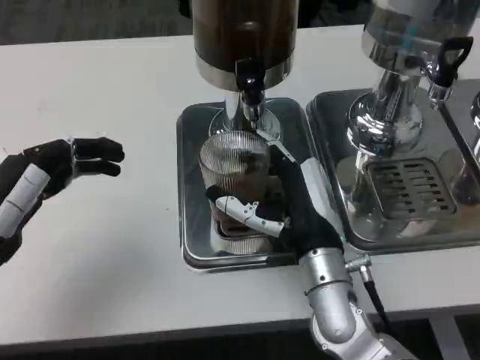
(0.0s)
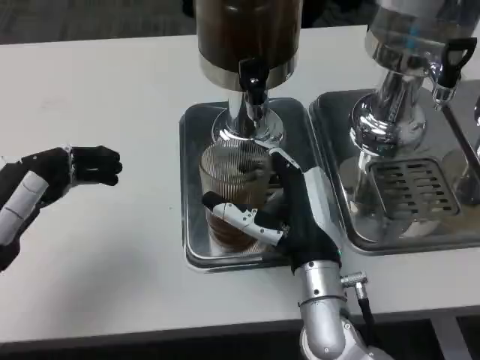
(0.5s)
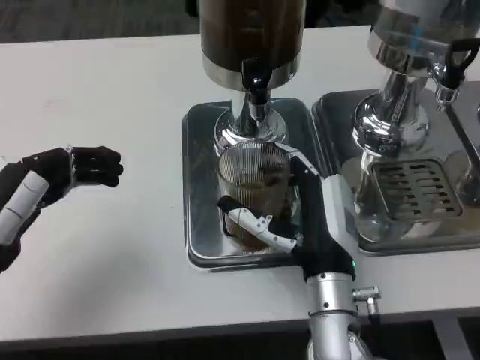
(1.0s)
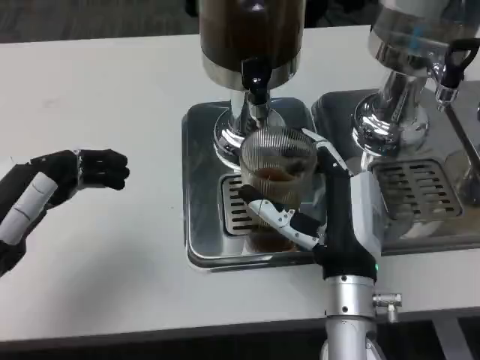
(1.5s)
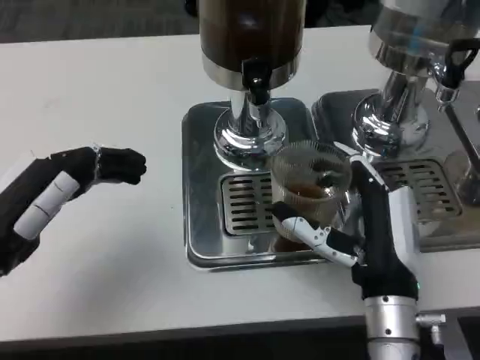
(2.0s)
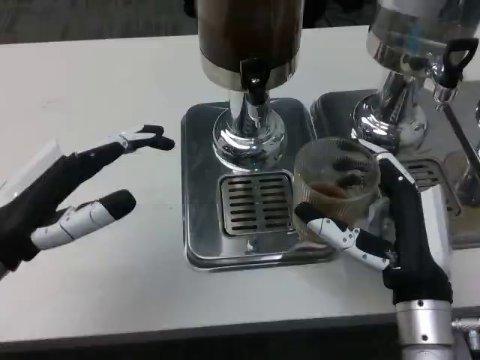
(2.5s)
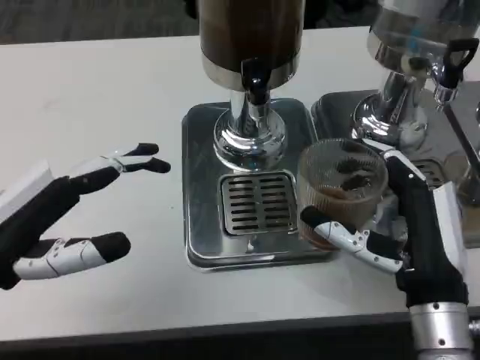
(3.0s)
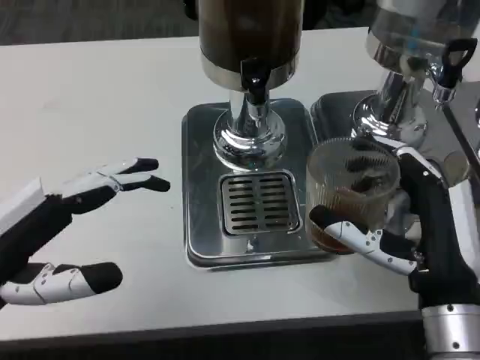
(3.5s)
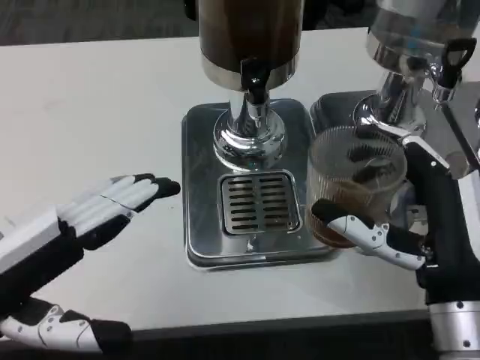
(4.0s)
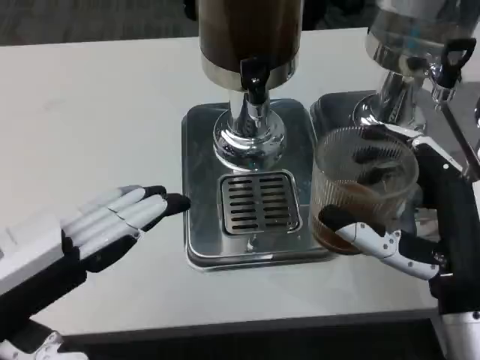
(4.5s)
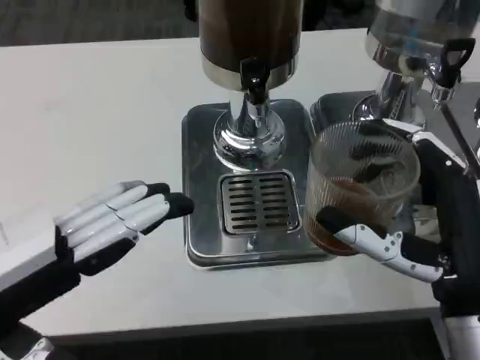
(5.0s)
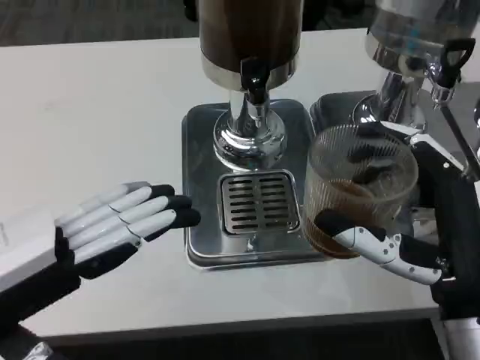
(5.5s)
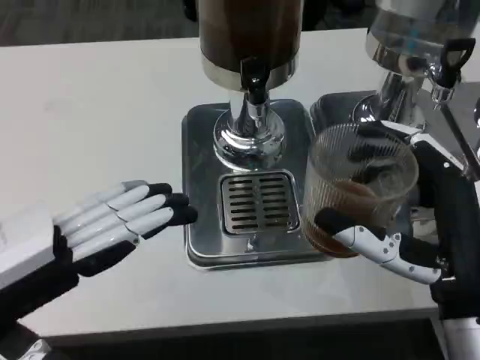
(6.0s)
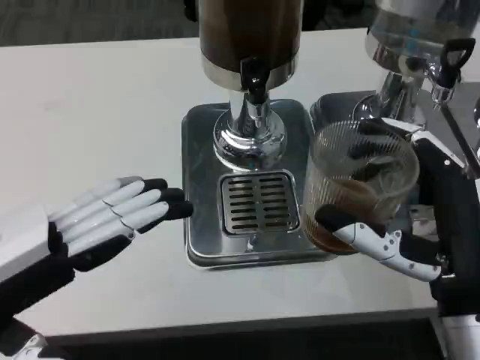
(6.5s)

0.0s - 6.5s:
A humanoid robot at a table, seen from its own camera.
Task of the whole recording: Grasp the cup under the faucet to collect the drink, then remove the cup.
0.0s - 2.0s: The right hand moves some 5 cm.
2.0s - 4.5s: The left hand shifts some 10 cm backward and upward; the right hand goes roughly 5 cm upward.
4.5s - 6.5s: There are only small adjustments of the hands.

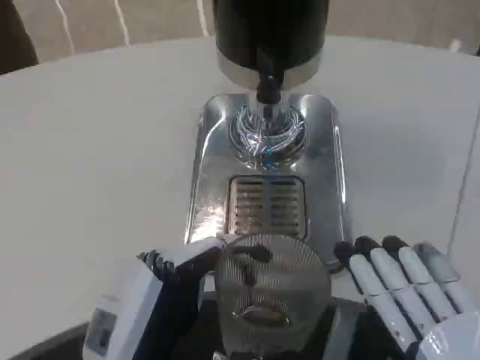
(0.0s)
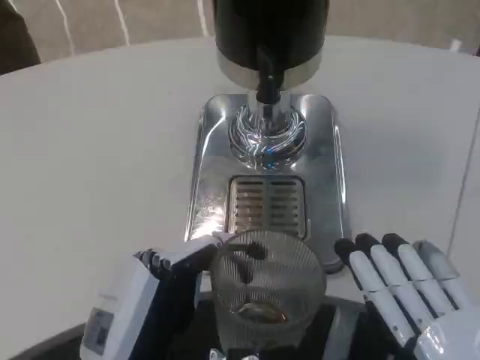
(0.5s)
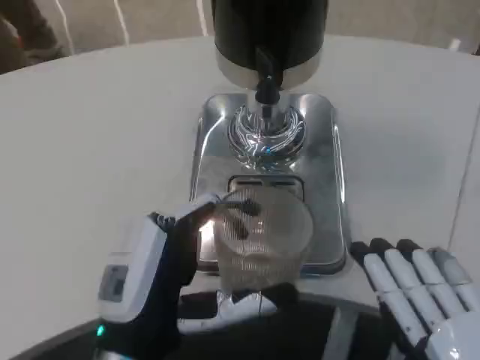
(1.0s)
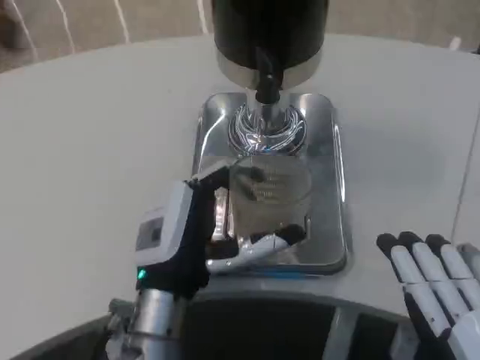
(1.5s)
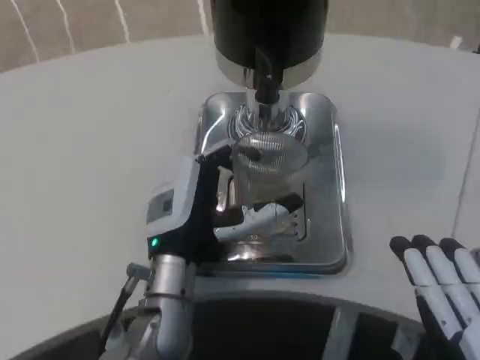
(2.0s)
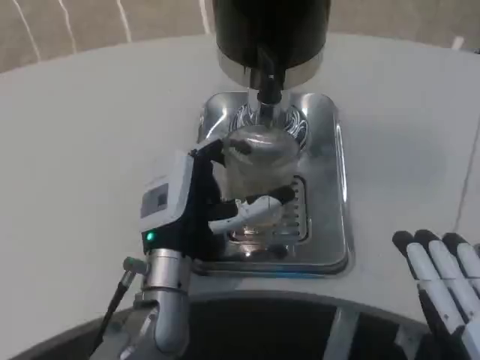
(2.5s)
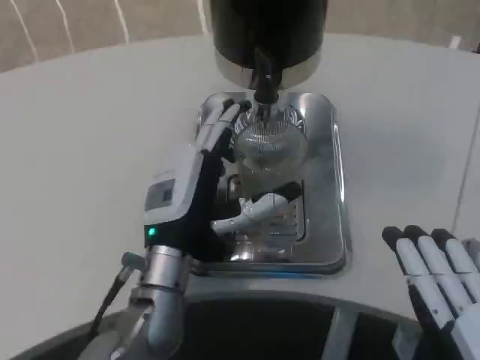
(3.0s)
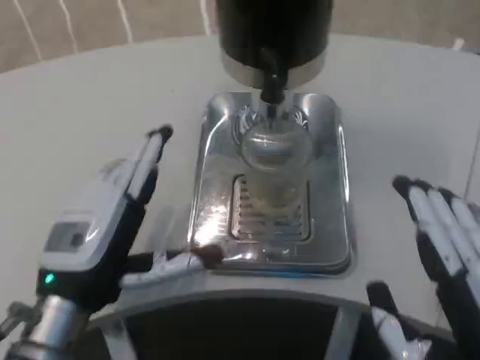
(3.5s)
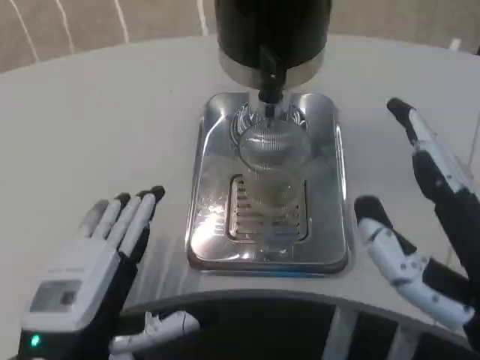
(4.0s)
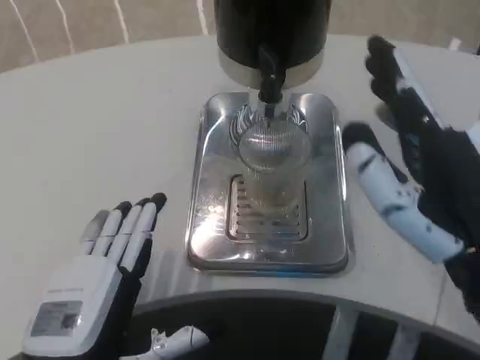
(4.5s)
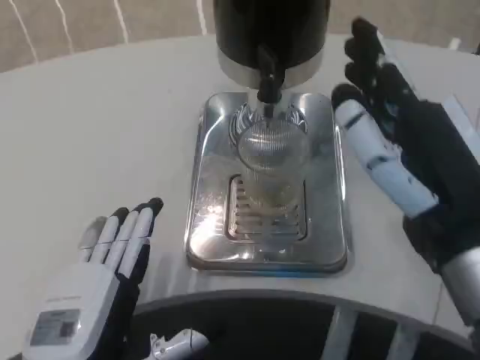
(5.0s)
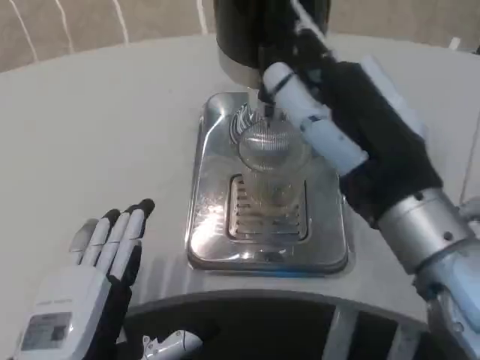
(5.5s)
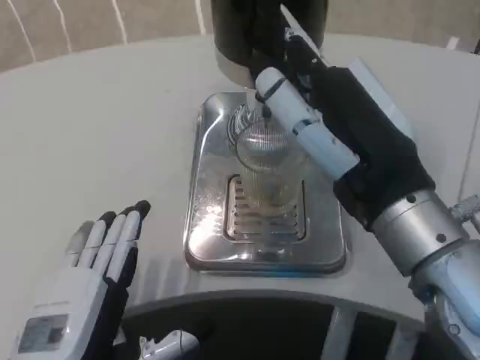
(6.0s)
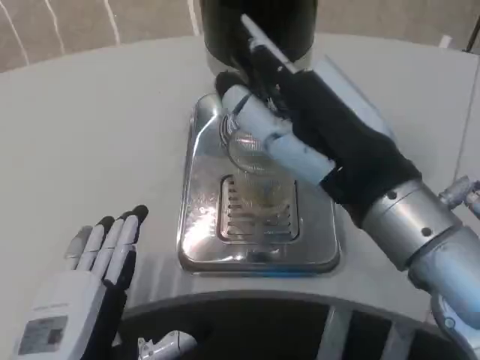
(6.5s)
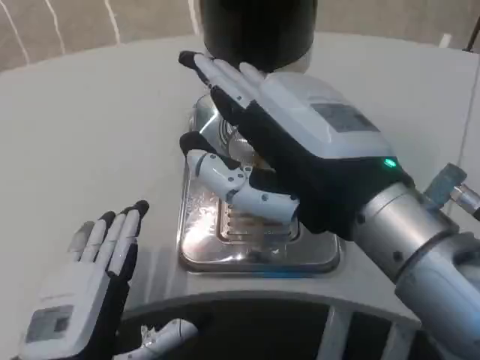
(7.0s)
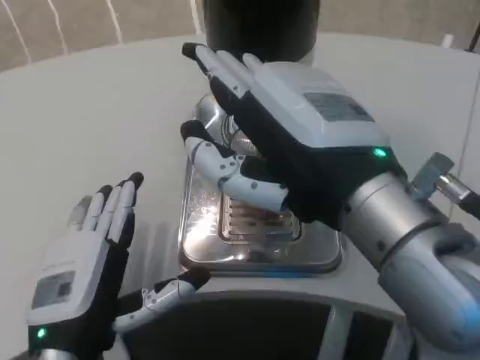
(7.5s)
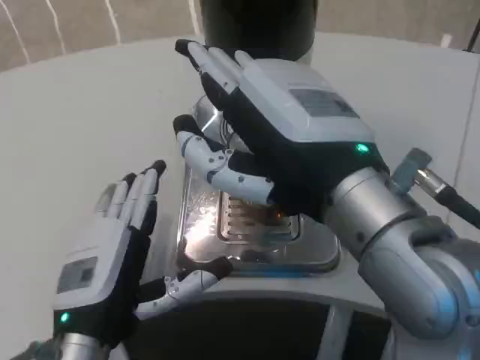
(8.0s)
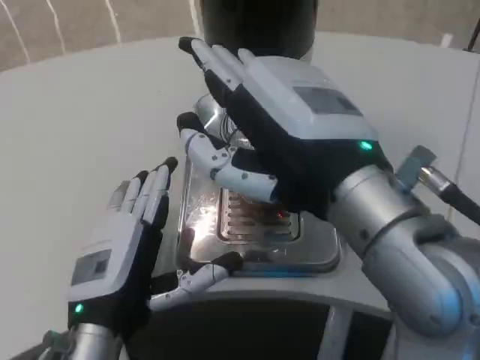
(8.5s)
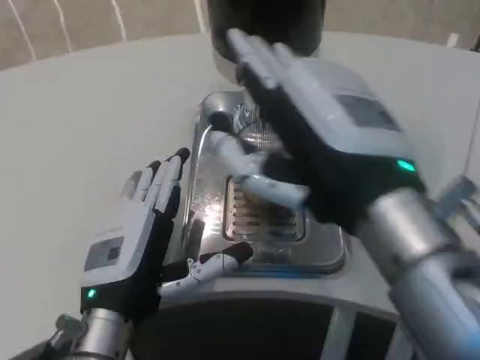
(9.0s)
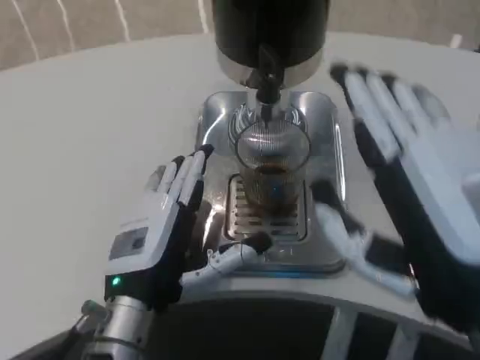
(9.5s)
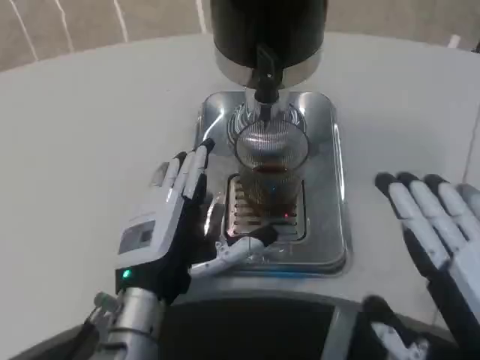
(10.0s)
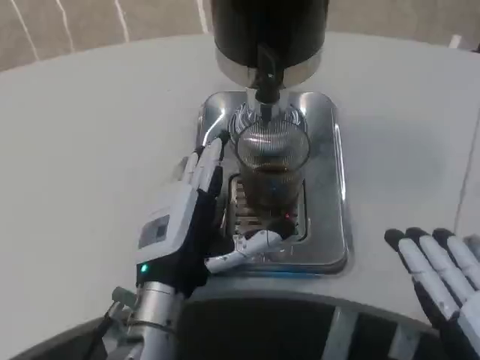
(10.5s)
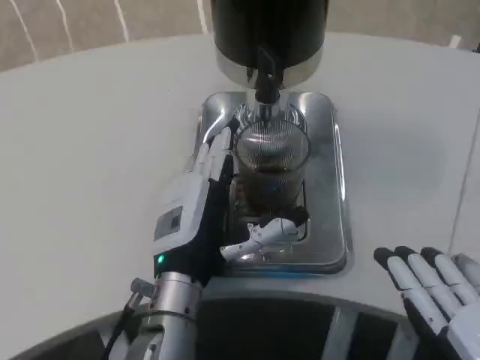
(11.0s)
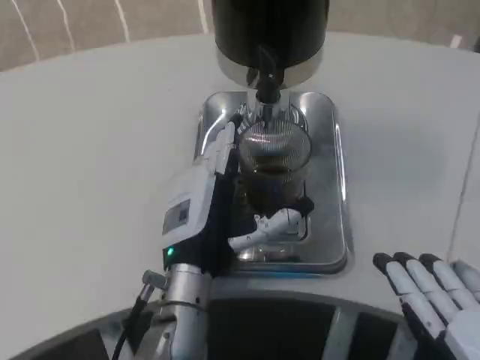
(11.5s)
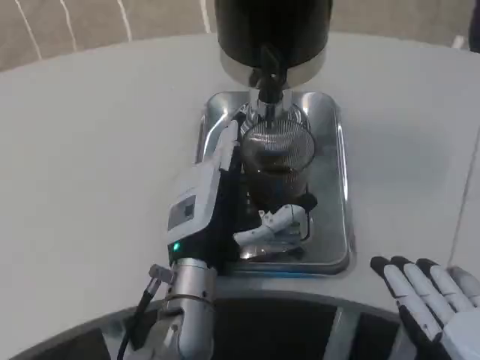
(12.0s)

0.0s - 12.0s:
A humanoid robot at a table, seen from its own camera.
Task of the whole recording: Grasp the cup under the faucet to collect the drink, then remove the cup.
0.0s - 2.0s: The left hand moves forward, roughly 15 cm.
2.0s - 4.0s: The right hand shifts approximately 10 cm upward and forward. Meanwhile the left hand is displaced backward and to the left by some 15 cm.
4.0s - 6.0s: The right hand is displaced forward and to the left by some 10 cm.
6.0s - 8.0s: The left hand is displaced forward by roughly 5 cm. Meanwhile the right hand moves roughly 5 cm.
8.0s - 10.0s: The right hand shifts about 20 cm downward, to the right and backward; the left hand moves forward, about 5 cm.
10.0s - 12.0s: The left hand heads to the right, covering roughly 5 cm.

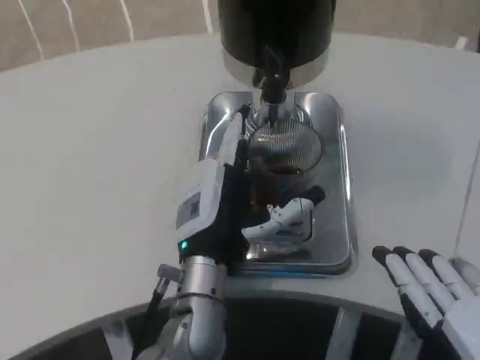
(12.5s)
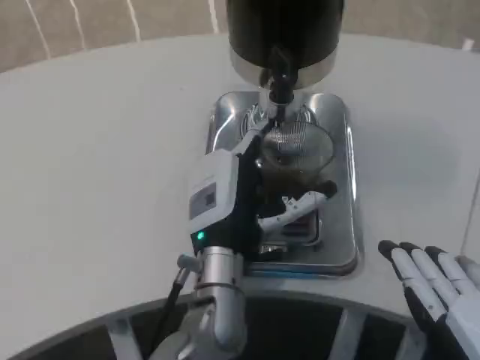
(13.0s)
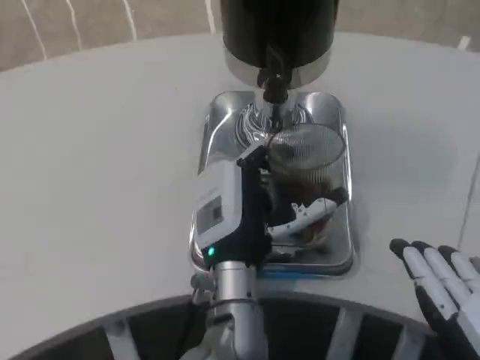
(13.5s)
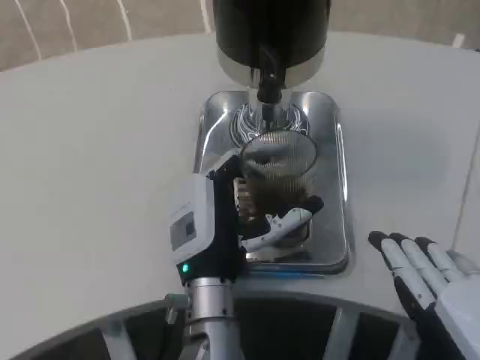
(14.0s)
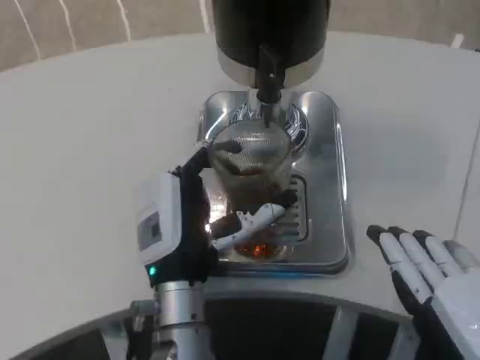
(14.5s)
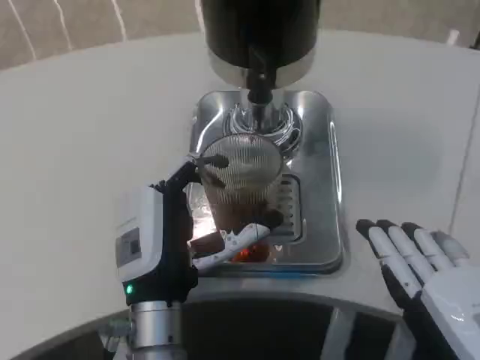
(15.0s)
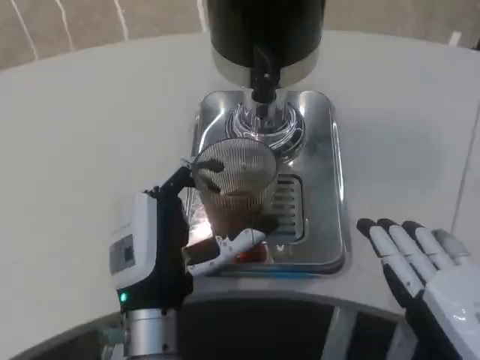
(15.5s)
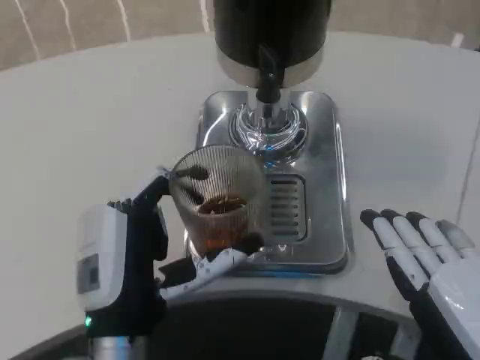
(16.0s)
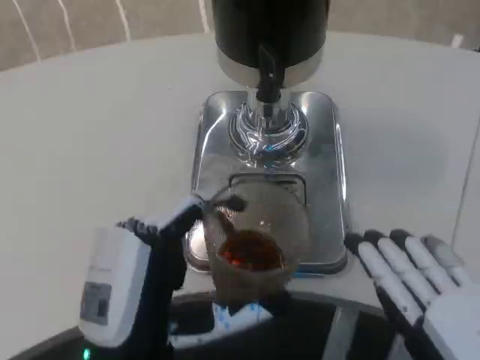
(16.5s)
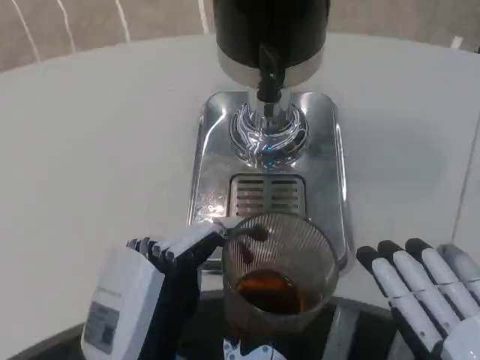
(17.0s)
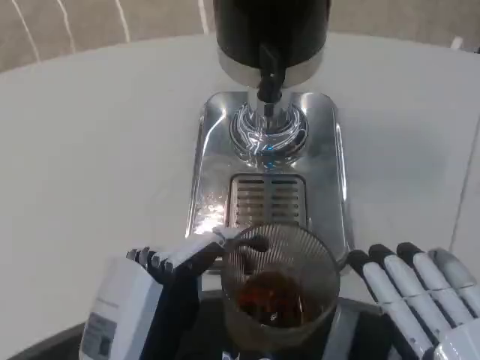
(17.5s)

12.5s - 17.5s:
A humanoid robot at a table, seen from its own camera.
Task of the whole recording: Grasp the cup under the faucet to collect the drink, then remove the cup.
12.5s - 15.0s: The left hand moves approximately 5 cm.
15.0s - 17.5s: The left hand moves backward, some 10 cm.

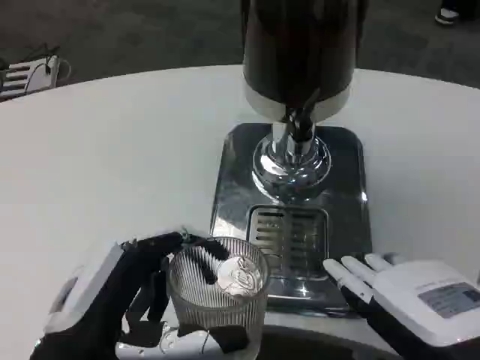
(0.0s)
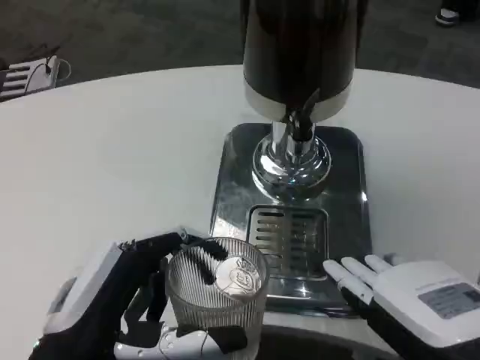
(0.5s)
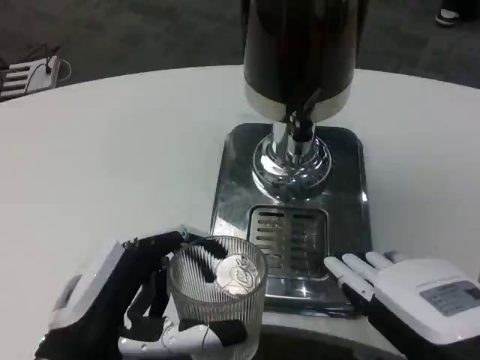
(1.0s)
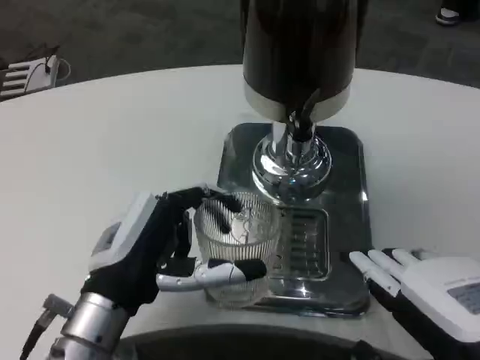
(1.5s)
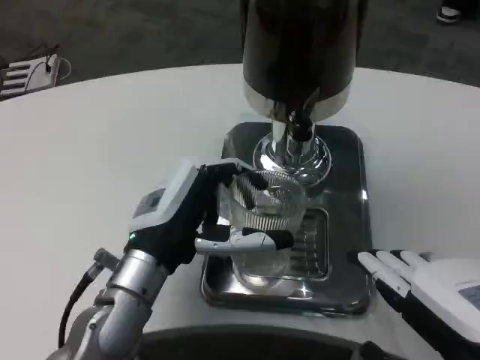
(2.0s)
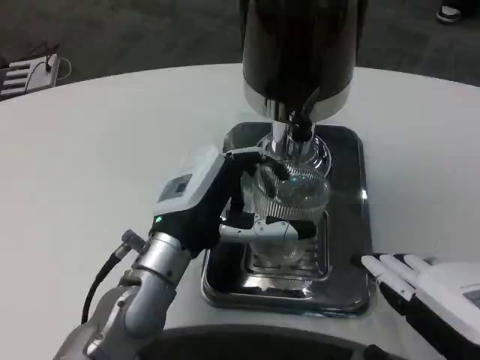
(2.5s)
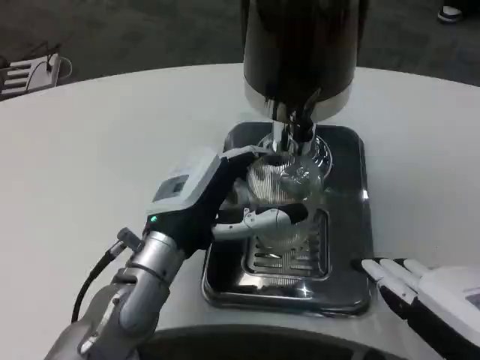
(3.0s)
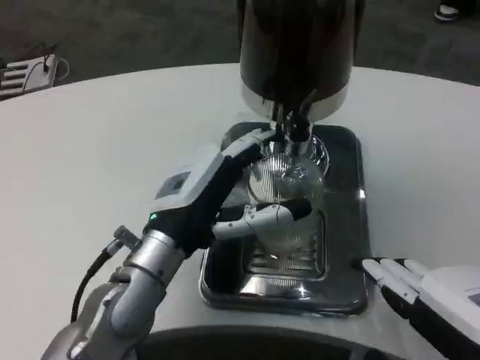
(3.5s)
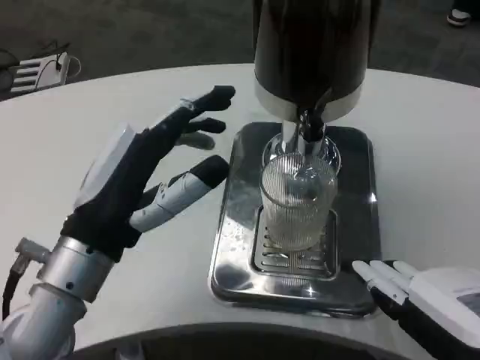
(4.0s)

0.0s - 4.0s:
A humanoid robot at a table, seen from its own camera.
Task of the whole recording: Grasp the cup under the faucet to collect the drink, then remove the cup.
0.0s - 2.0s: The left hand travels forward by approximately 10 cm.
2.0s - 4.0s: The left hand changes place by about 10 cm.
